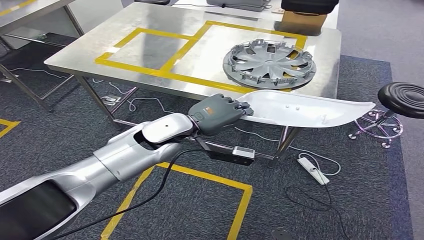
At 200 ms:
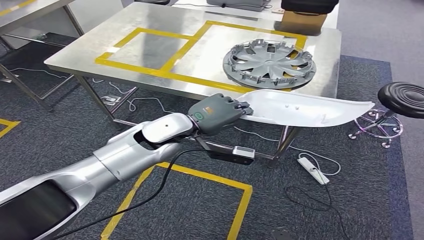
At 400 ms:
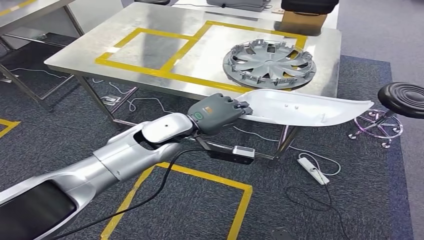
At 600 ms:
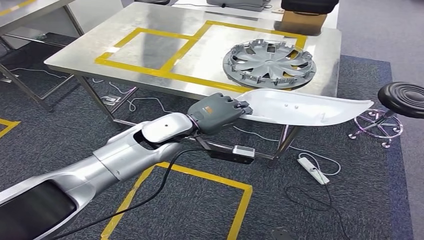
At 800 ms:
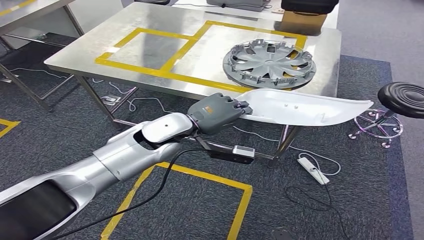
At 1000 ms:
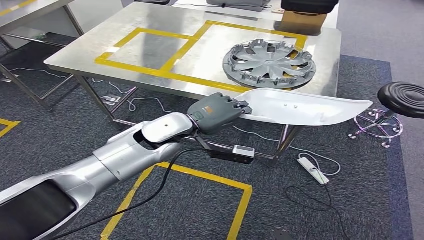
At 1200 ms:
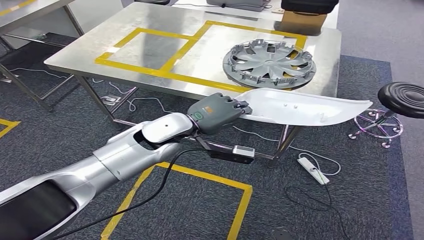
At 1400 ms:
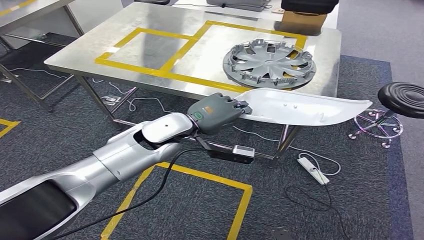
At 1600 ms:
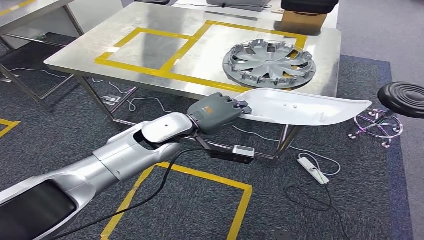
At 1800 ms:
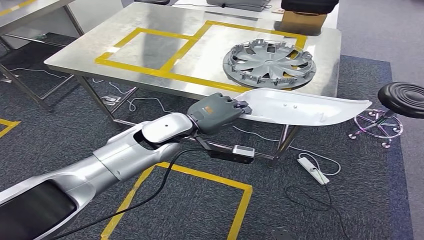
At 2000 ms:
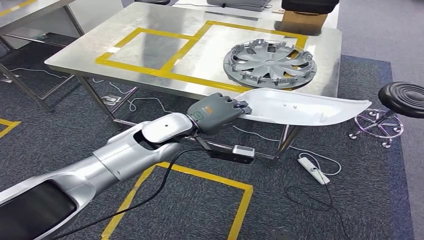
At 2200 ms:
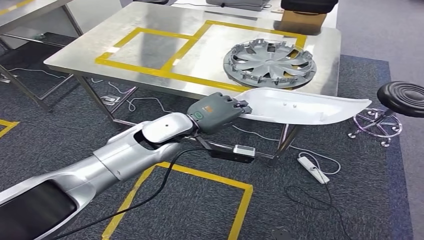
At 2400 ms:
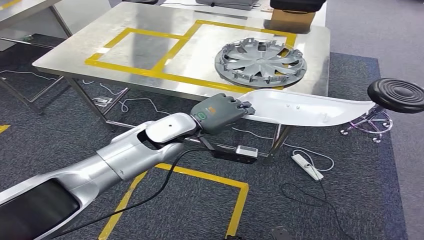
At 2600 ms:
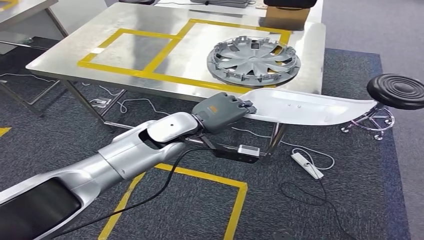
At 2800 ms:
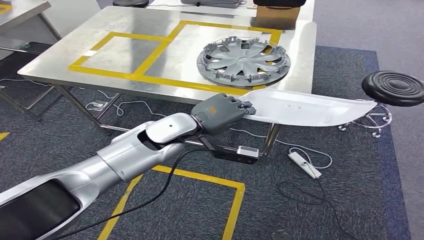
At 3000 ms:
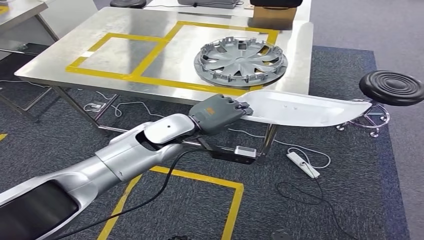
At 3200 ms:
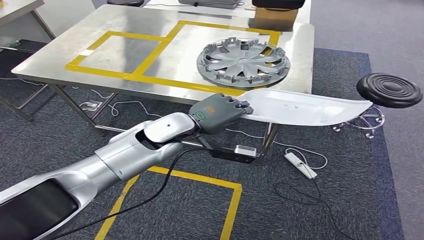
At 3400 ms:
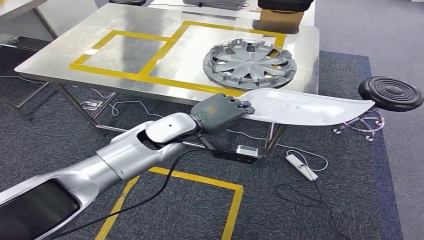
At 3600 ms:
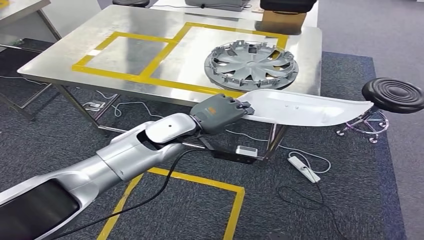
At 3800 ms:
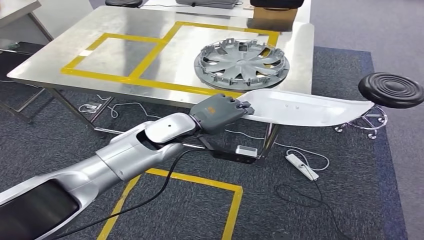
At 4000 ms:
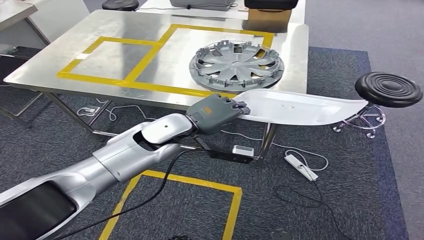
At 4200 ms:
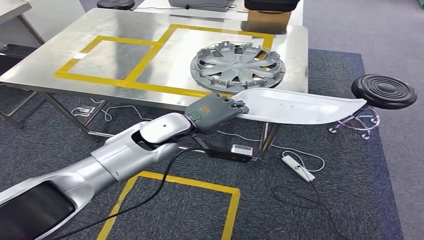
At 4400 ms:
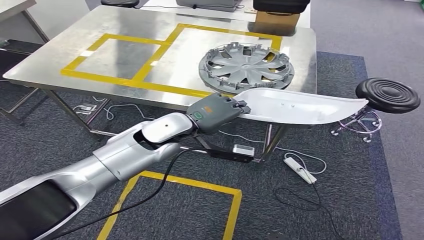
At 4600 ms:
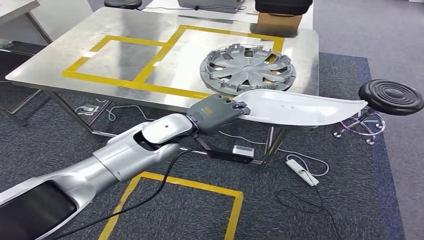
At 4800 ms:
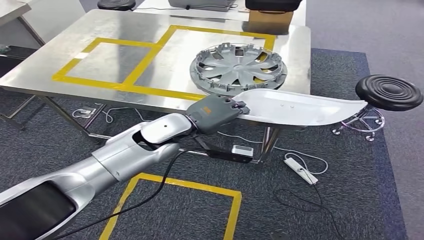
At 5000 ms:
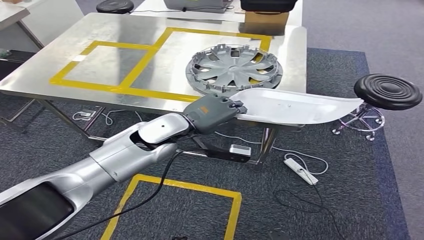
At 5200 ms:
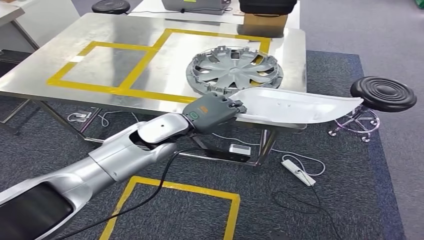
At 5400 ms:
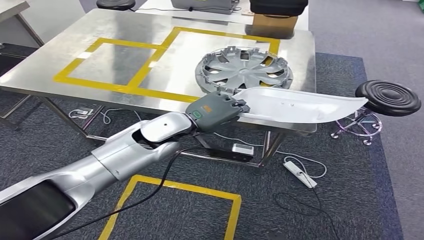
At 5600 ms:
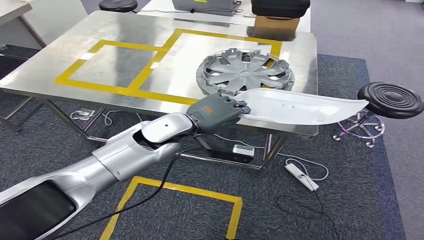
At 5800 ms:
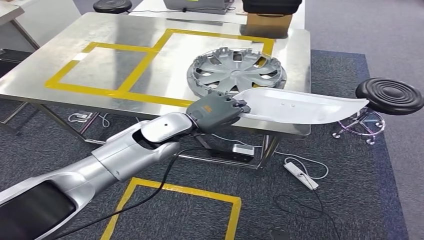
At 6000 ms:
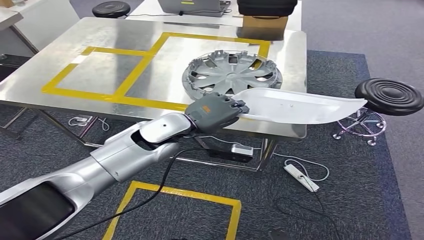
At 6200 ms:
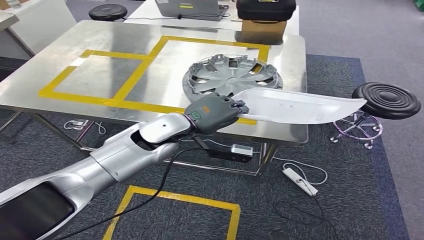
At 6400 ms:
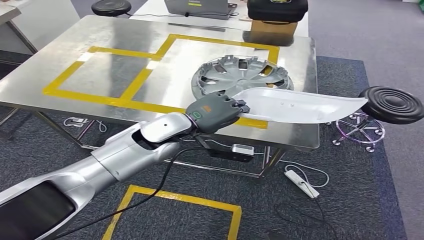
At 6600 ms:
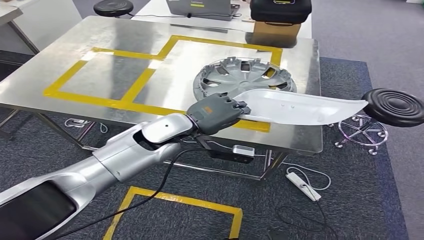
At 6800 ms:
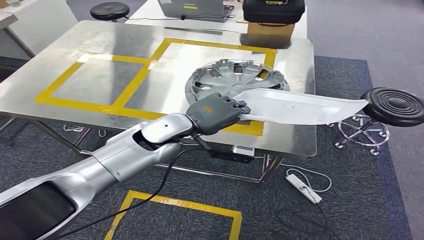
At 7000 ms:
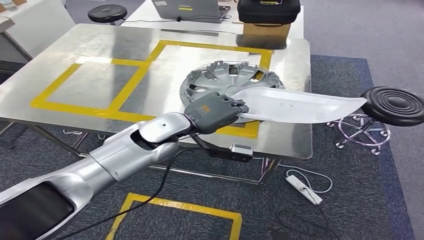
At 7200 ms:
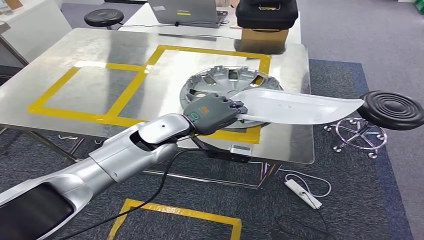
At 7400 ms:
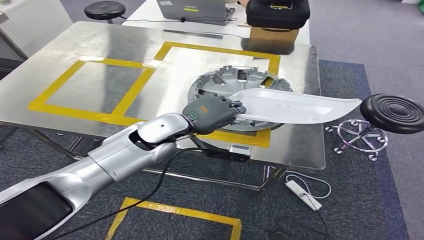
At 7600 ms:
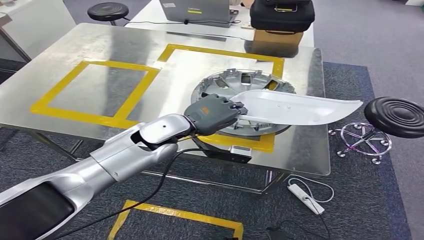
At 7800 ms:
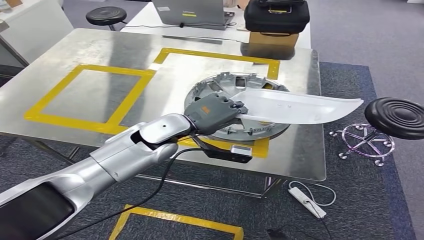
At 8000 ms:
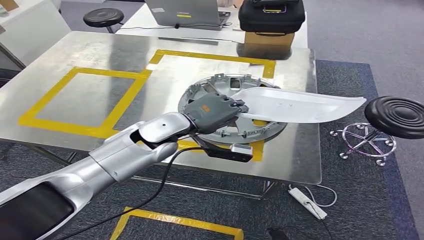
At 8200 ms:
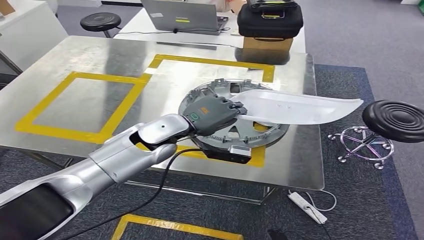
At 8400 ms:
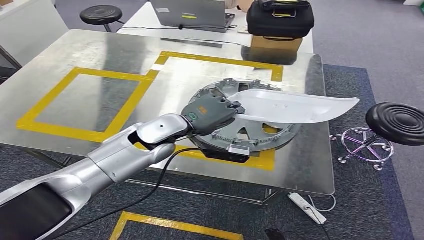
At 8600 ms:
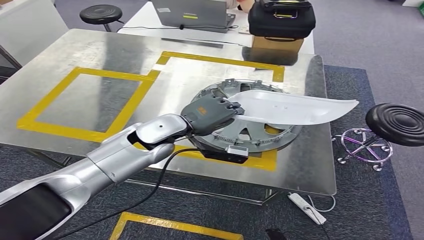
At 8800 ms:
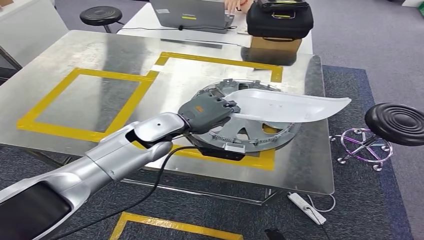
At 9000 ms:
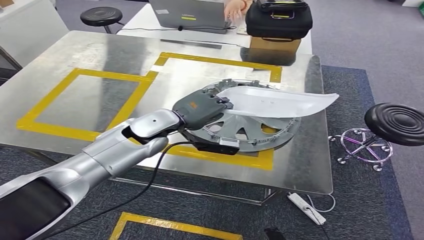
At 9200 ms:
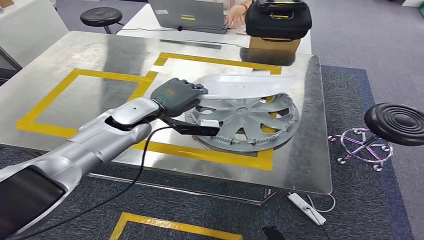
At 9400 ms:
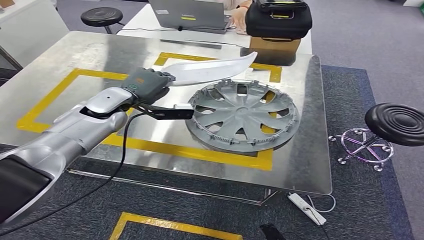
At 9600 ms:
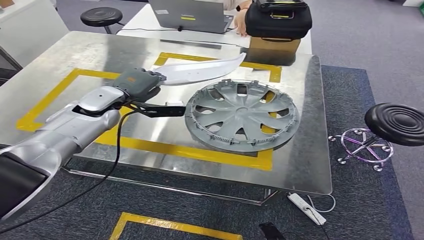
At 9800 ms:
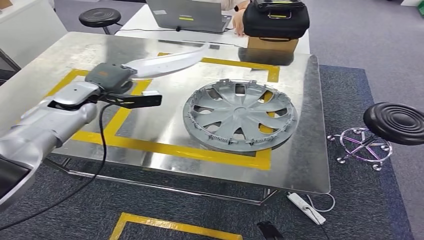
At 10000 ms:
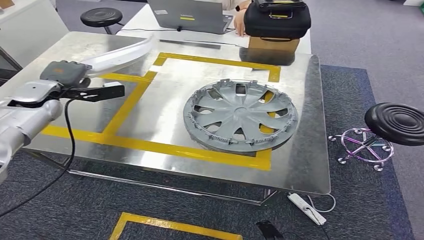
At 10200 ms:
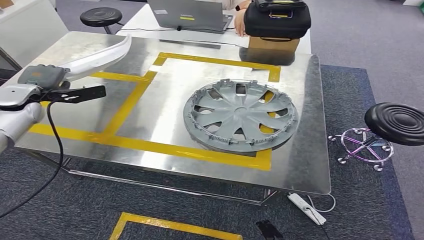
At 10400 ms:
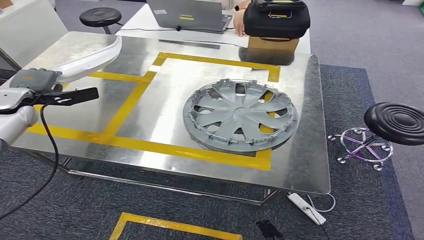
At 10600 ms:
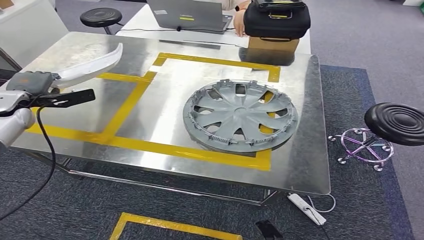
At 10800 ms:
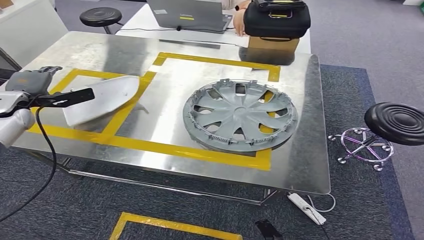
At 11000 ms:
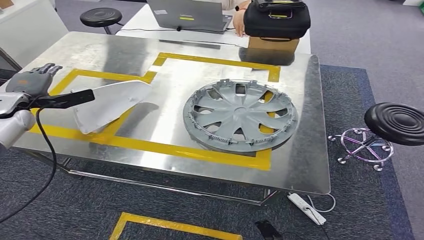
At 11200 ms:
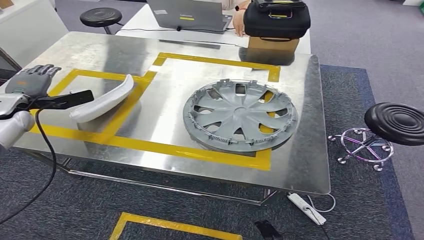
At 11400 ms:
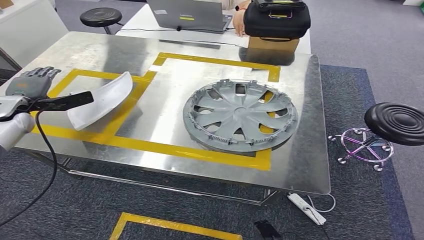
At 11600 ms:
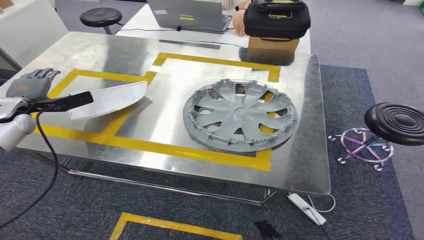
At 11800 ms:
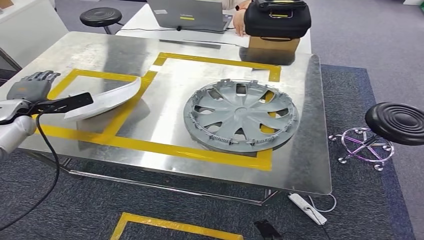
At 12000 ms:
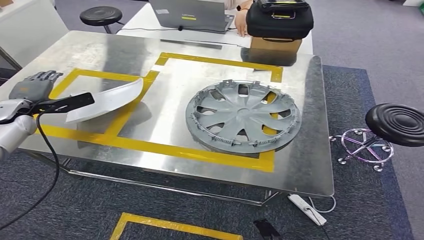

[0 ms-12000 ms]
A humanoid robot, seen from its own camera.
Step, 0 ms to 10000 ms: Move the small component to the workbench.
0 ms to 1600 ms: Both hands stay put.
10400 ms to 12000 ms: There are only small adjustments of the hands.

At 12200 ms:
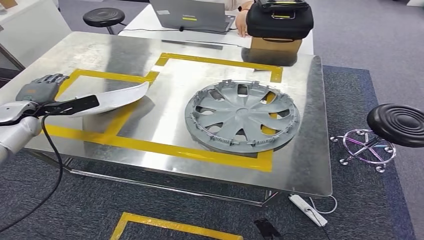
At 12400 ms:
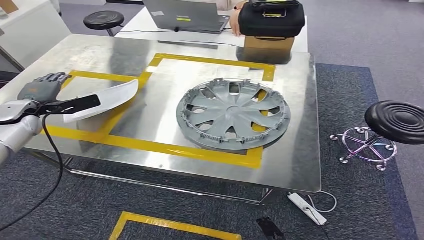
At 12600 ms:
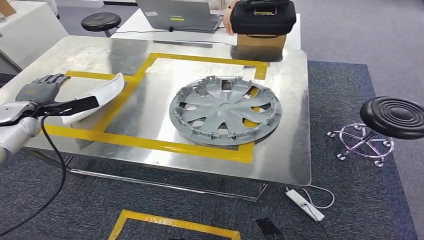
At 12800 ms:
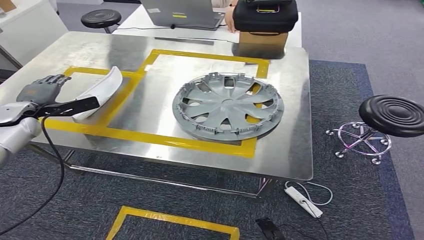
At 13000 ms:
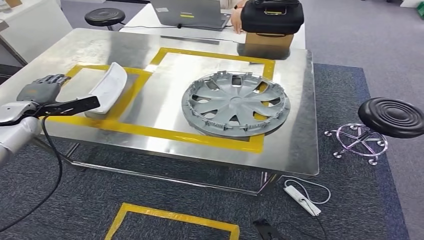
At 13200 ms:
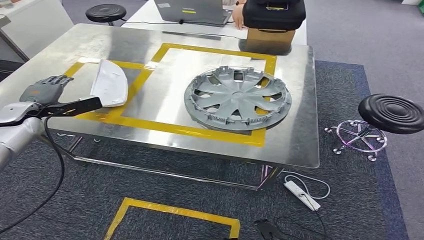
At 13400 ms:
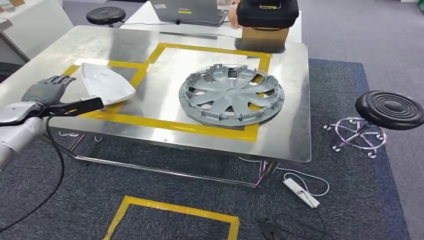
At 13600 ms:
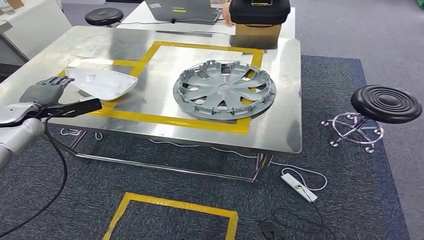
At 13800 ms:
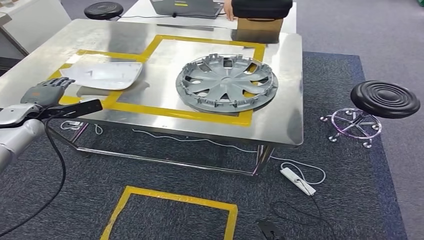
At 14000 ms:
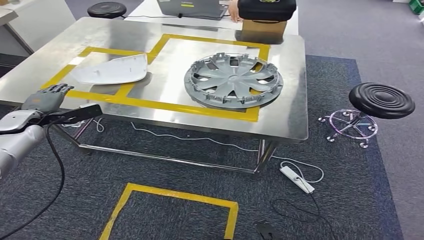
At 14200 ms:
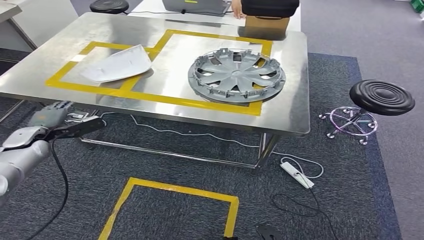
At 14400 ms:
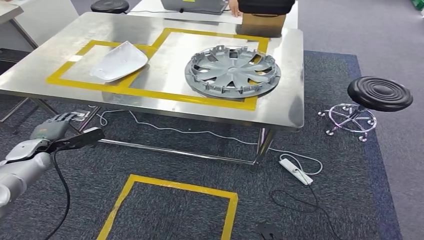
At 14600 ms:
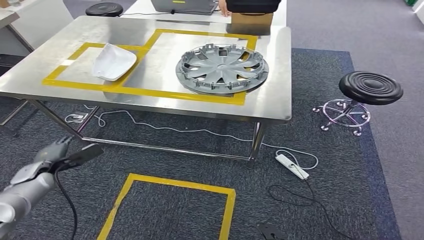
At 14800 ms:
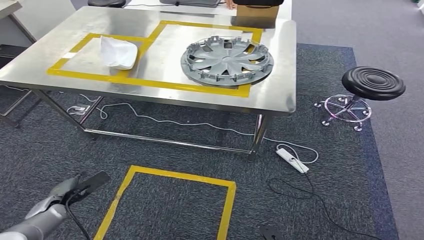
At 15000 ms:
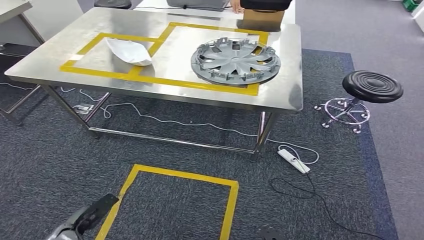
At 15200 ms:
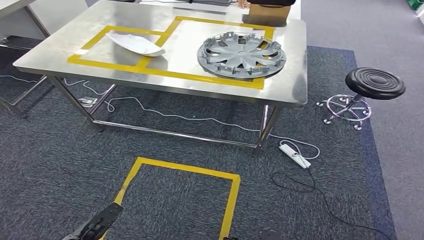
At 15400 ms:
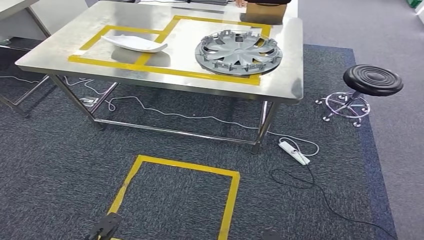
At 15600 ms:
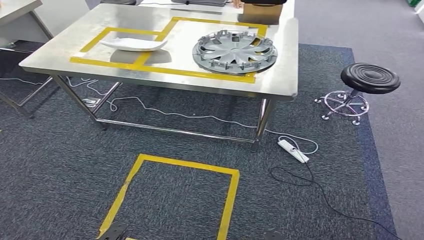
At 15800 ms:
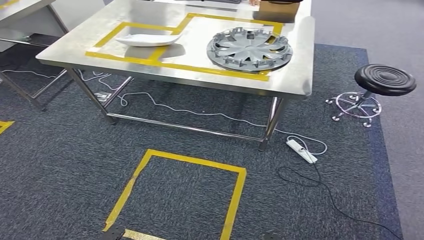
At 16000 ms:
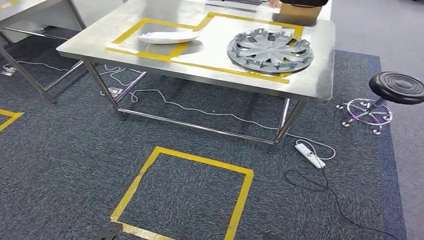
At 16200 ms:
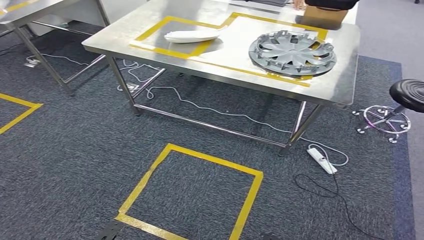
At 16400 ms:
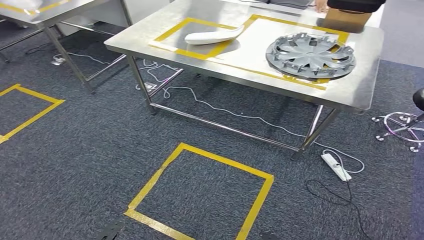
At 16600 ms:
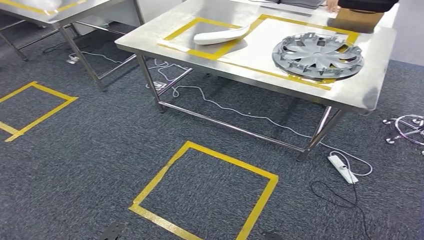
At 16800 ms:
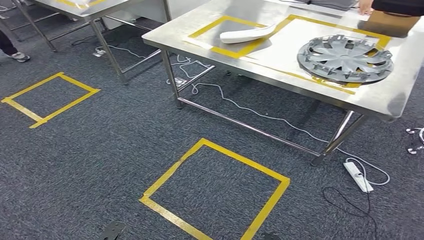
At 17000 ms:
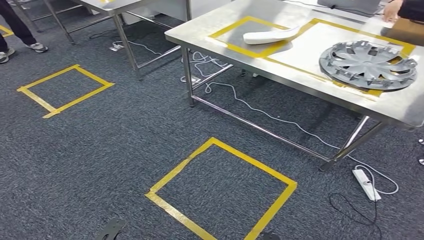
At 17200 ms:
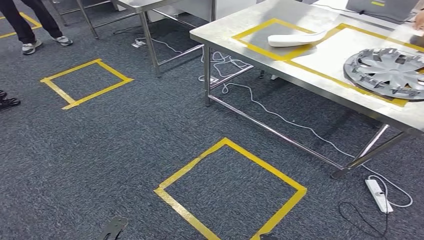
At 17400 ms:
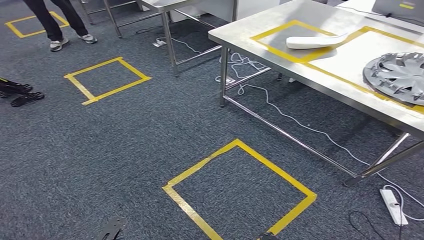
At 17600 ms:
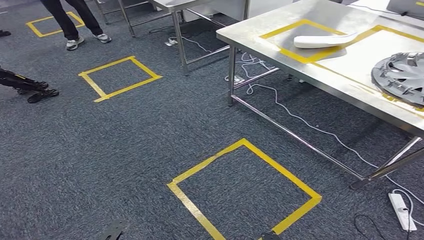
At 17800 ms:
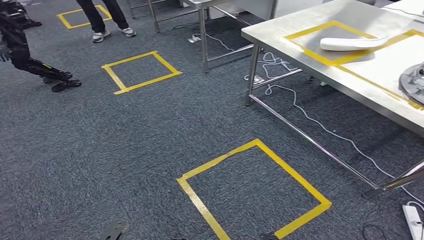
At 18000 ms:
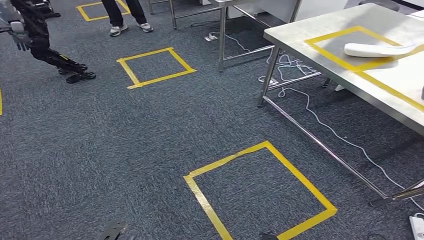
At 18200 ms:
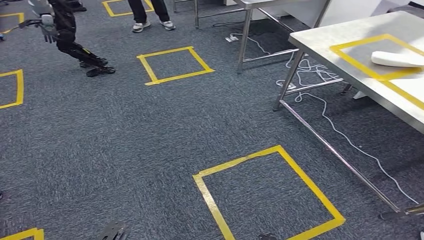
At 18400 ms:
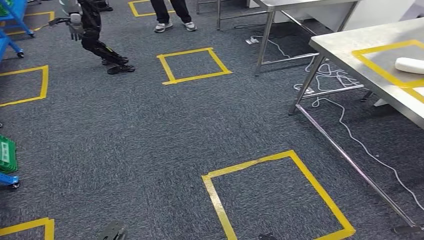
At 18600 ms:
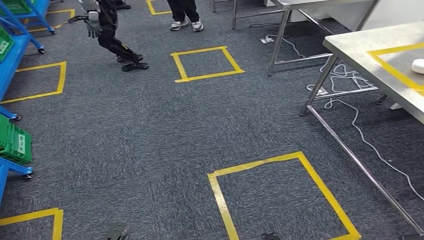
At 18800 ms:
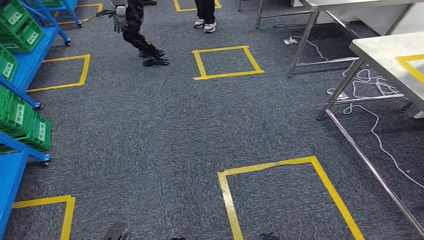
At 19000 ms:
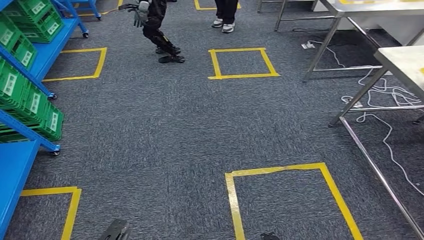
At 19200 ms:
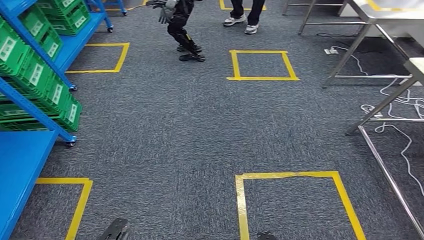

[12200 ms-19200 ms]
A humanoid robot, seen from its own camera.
Step, 12200 ms to 14600 ms: Insert the small component into the corresponding slot on the workbench.
